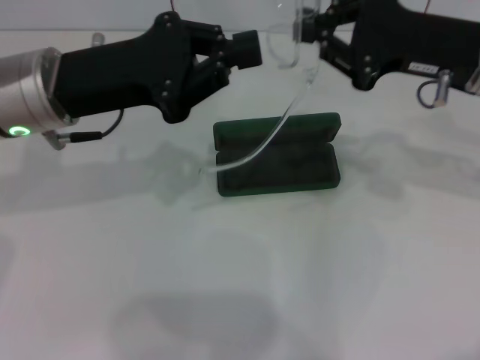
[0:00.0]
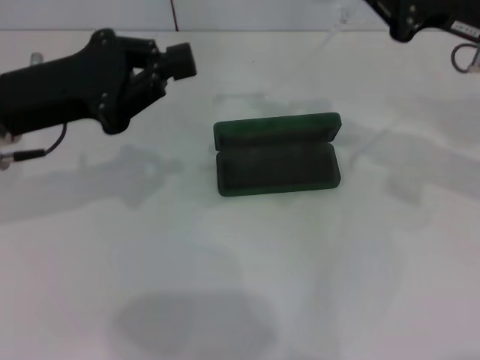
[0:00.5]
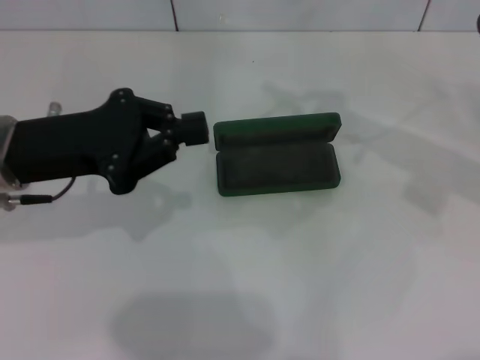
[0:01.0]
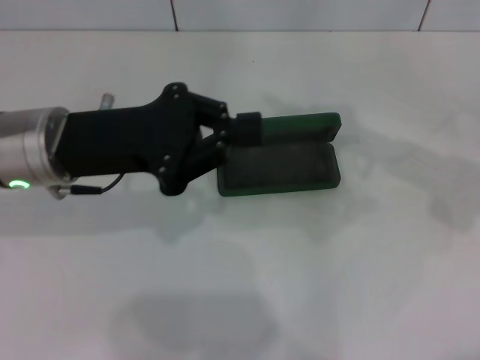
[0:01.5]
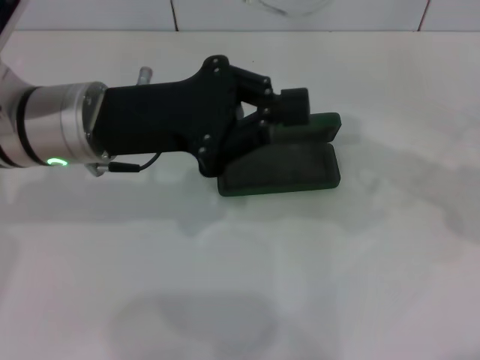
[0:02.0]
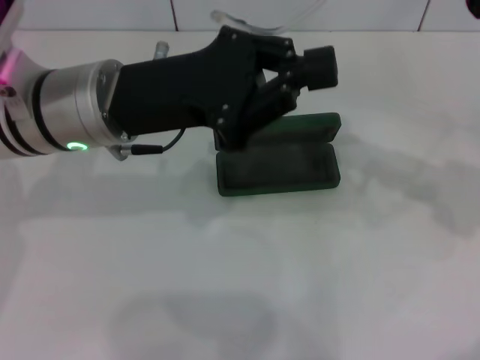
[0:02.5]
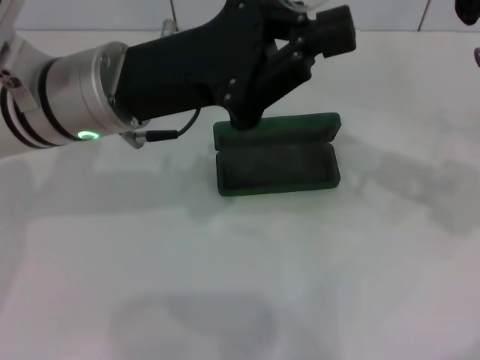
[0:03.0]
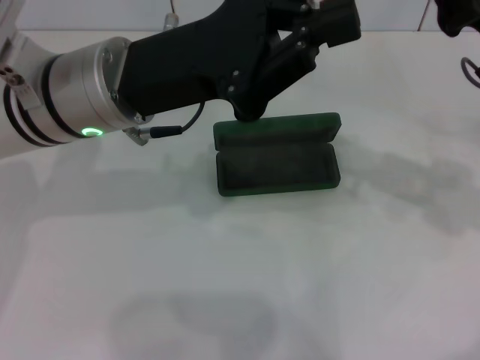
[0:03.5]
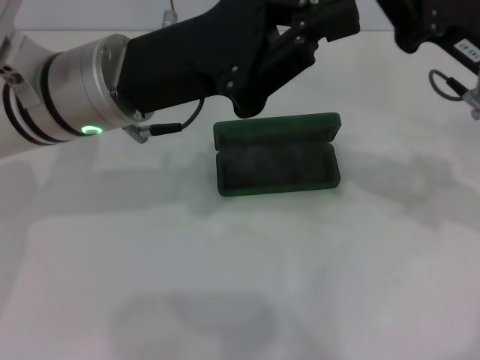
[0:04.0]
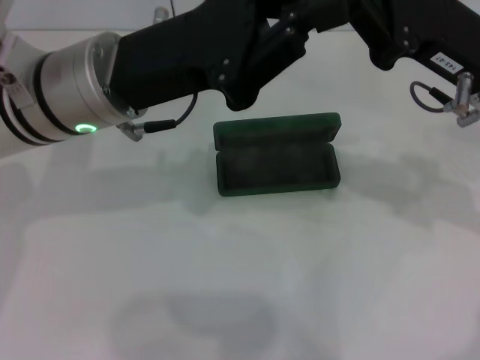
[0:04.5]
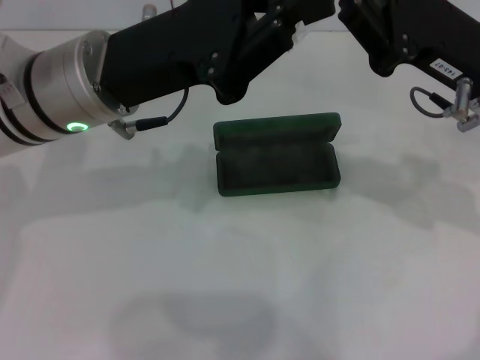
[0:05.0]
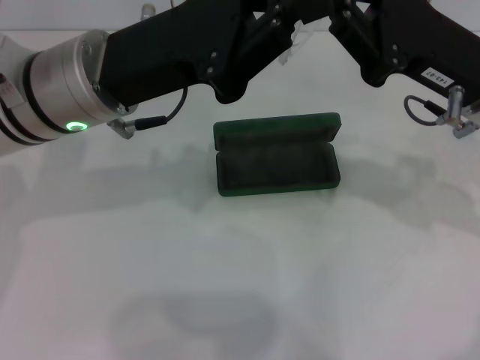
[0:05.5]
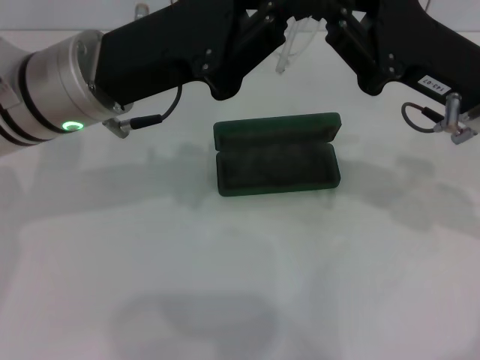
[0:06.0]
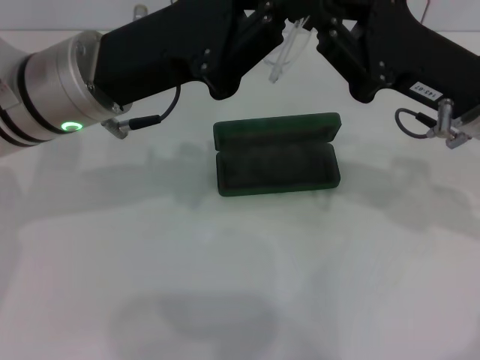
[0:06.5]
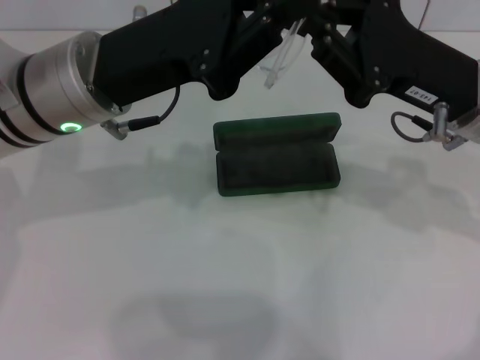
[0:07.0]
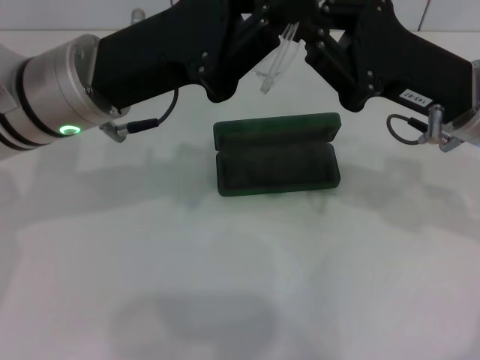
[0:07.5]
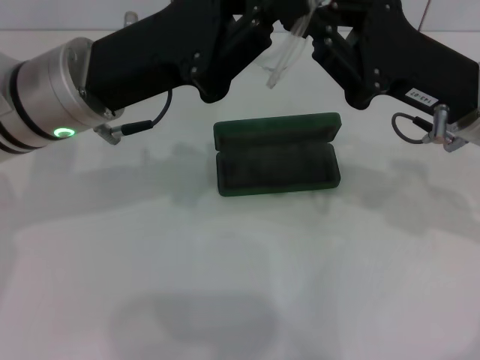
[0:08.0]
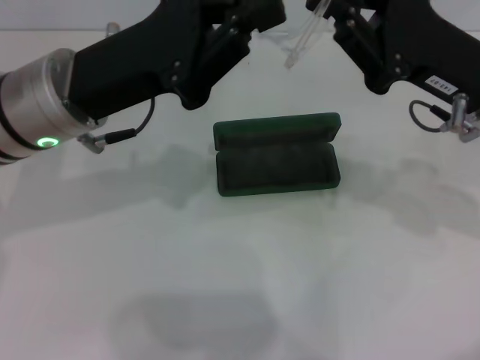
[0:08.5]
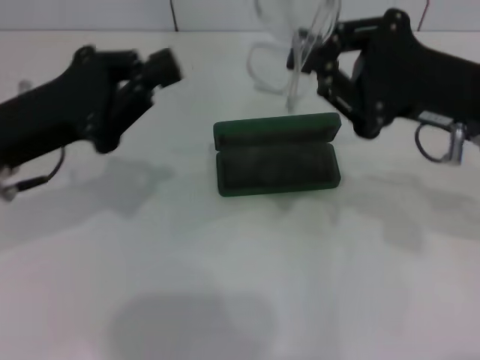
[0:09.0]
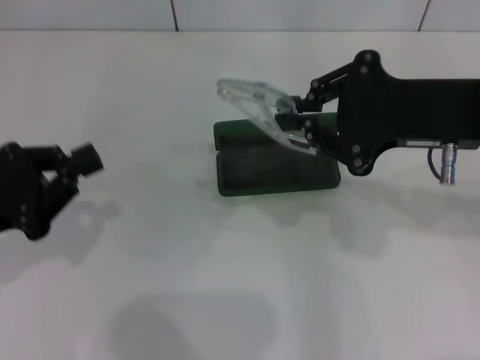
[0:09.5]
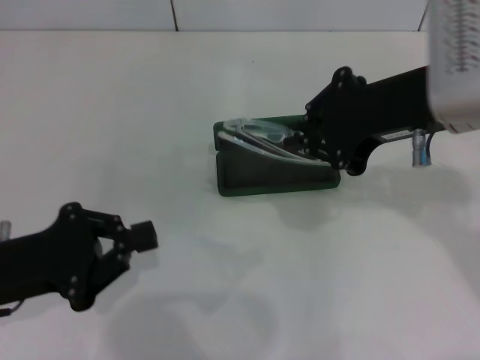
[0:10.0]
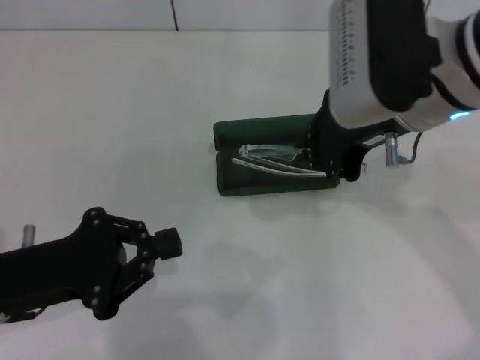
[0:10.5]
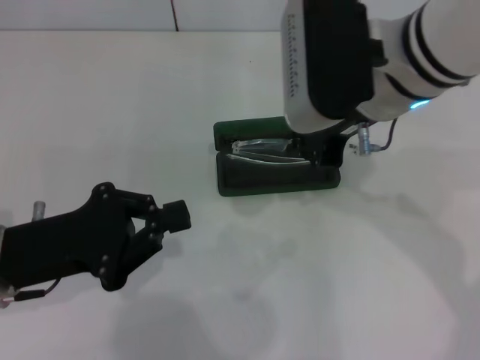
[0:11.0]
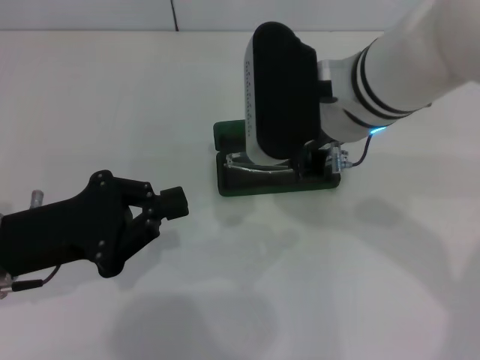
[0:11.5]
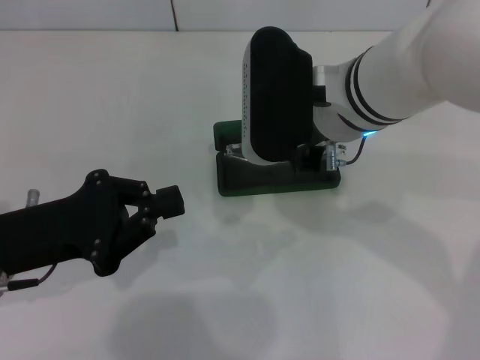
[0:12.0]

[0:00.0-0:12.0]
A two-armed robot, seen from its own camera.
Step, 0:00.0 to 0:08.0: Fold the frame with your left hand.
0:00.0 to 0:02.0: The right gripper changes place by about 5 cm.
0:04.0 to 0:06.0: The grippers move only a little.
0:06.0 to 0:08.0: The two grippers keep their place.
0:08.0 to 0:10.0: The left gripper shifts about 20 cm to the left, backward and downward; the right gripper is displaced upward by roughly 10 cm.
0:10.0 to 0:12.0: The right gripper is displaced to the left and downward by roughly 10 cm.

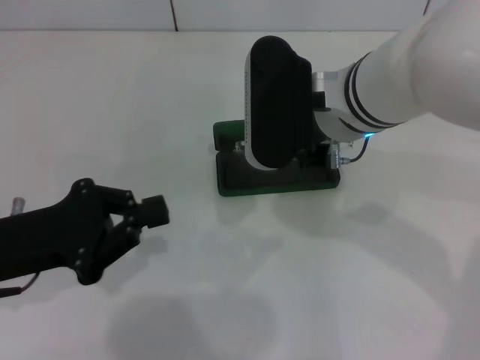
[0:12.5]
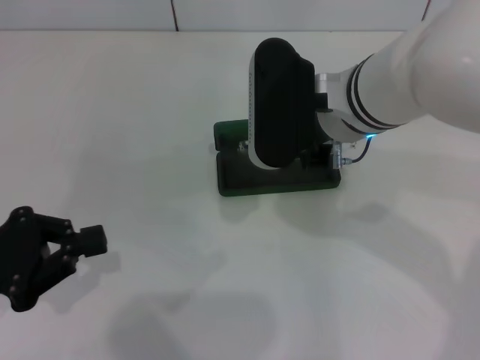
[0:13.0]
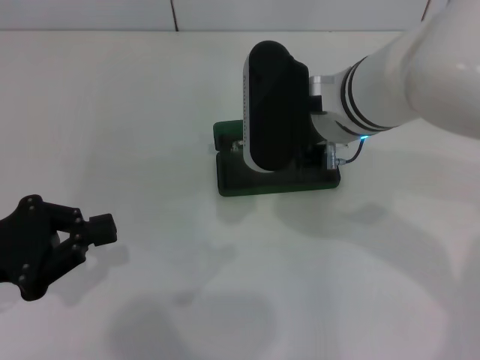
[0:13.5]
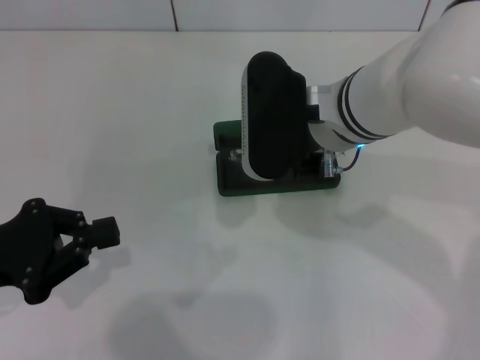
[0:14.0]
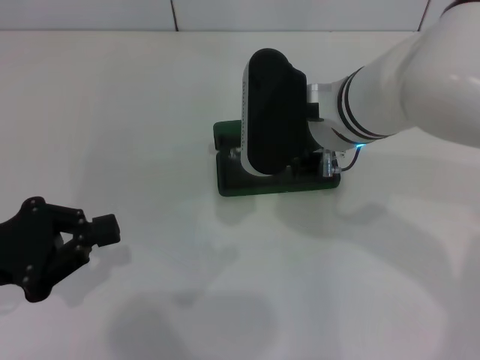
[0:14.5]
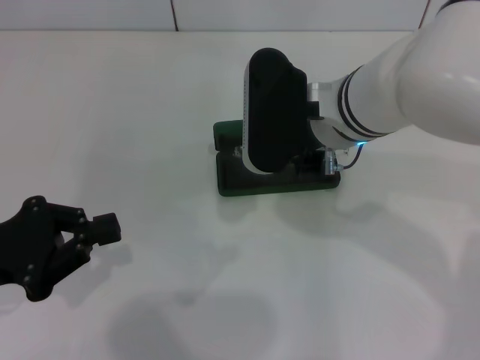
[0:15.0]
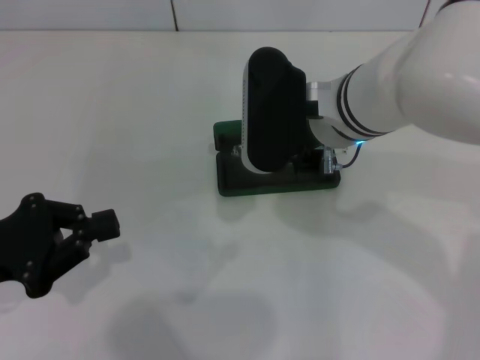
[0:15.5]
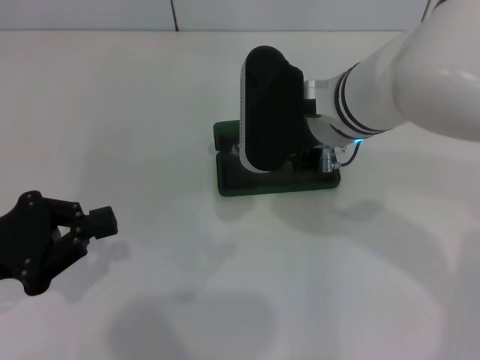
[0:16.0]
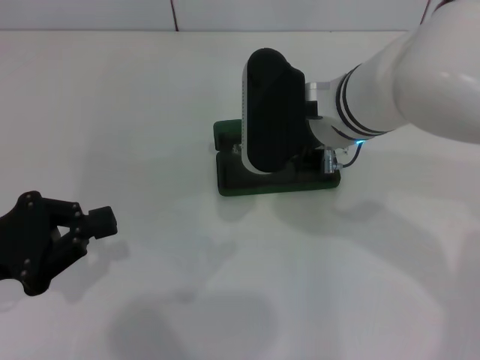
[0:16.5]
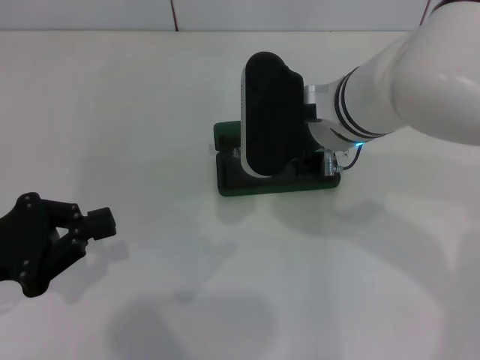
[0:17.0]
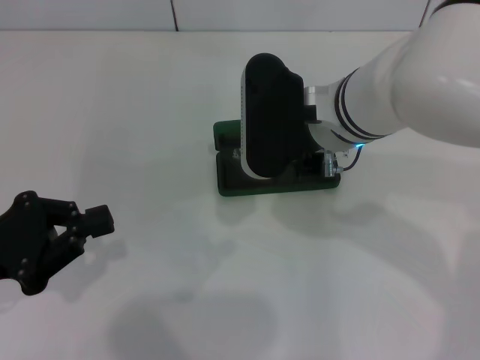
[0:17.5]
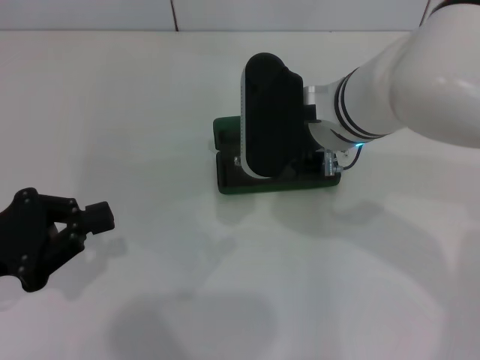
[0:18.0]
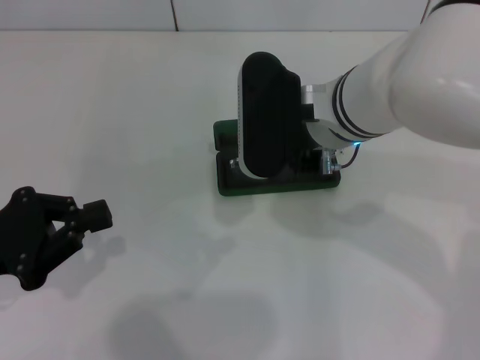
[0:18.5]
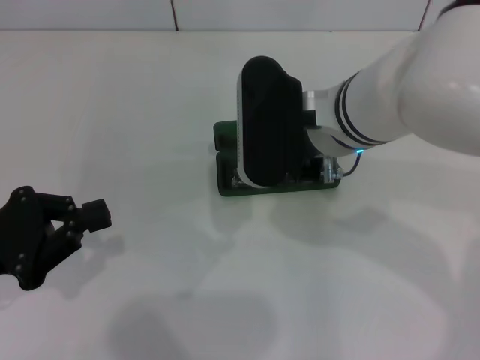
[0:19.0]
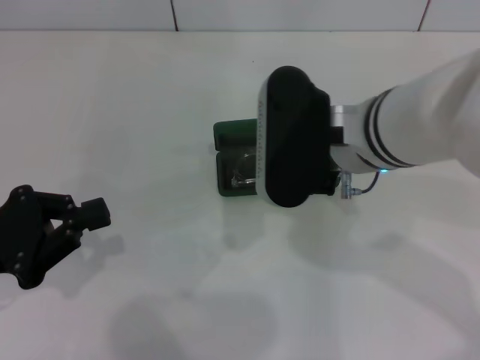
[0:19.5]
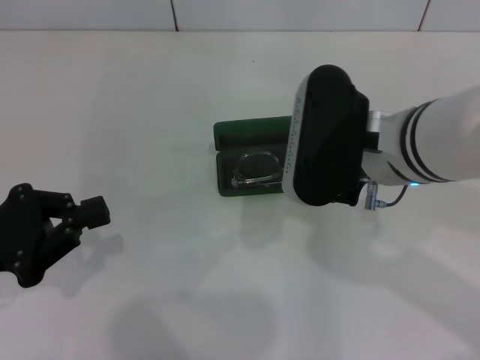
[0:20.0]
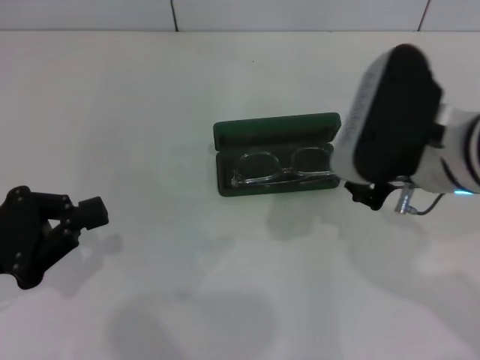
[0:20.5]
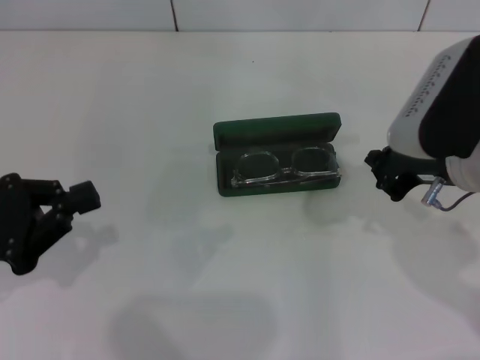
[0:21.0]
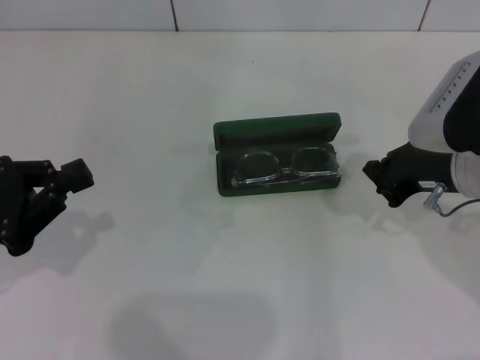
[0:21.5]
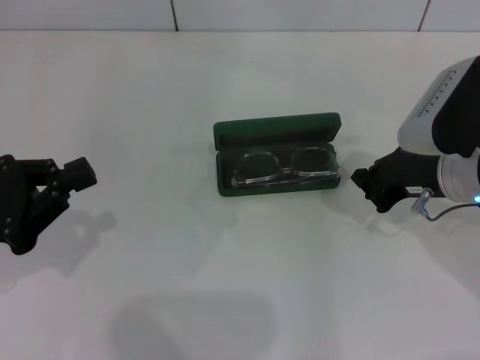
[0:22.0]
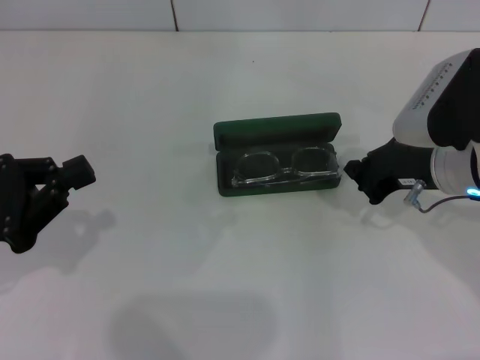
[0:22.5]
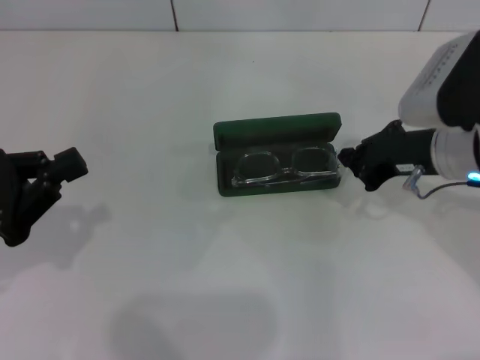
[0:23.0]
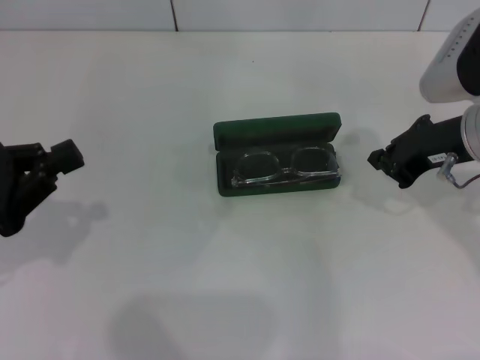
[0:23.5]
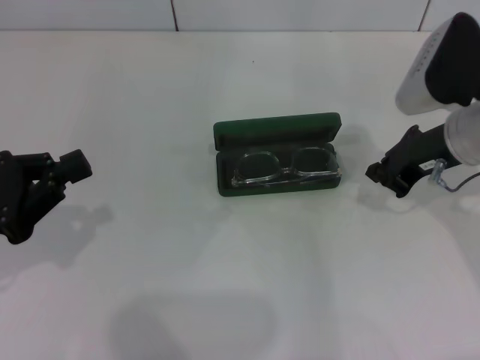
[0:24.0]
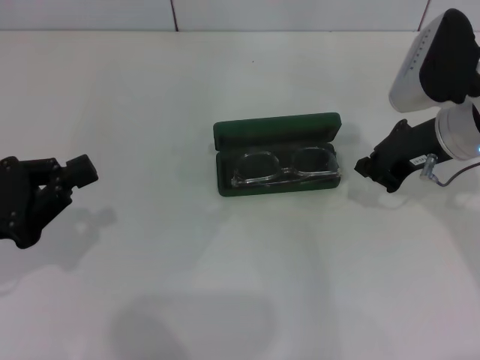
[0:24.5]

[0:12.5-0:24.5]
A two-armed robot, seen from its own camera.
0:12.5 to 0:14.5: There are only small adjustments of the grippers.
0:14.5 to 0:18.5: Both grippers stay put.
0:18.5 to 0:20.5: The right gripper heads to the right and backward, covering some 10 cm.
0:20.5 to 0:22.5: The right gripper heads downward and to the right, covering about 10 cm.
0:22.5 to 0:24.5: The grippers stay close to where they were, moving slightly.

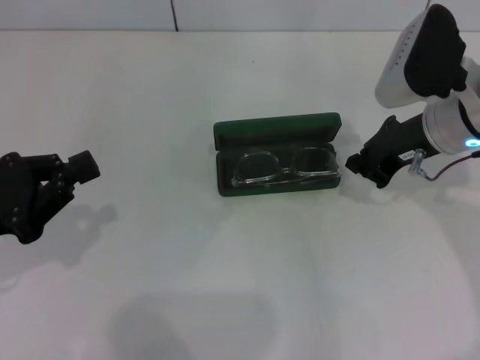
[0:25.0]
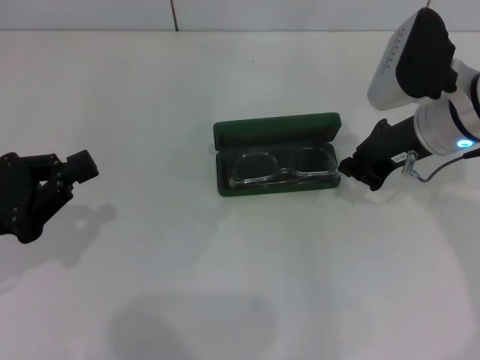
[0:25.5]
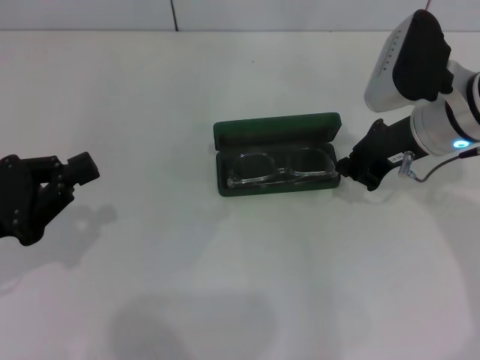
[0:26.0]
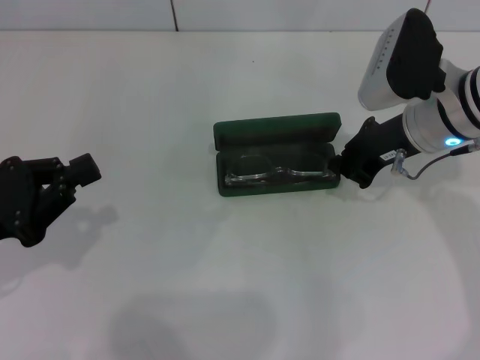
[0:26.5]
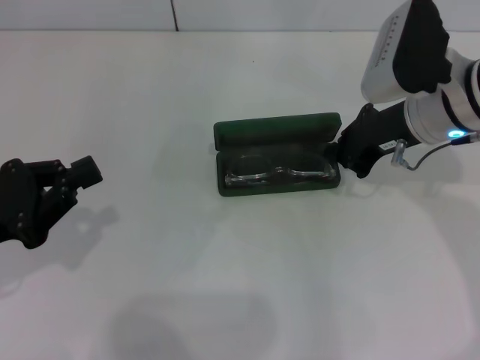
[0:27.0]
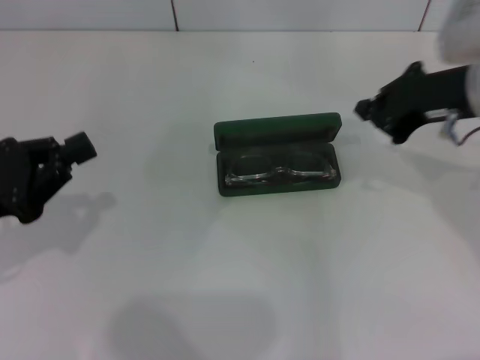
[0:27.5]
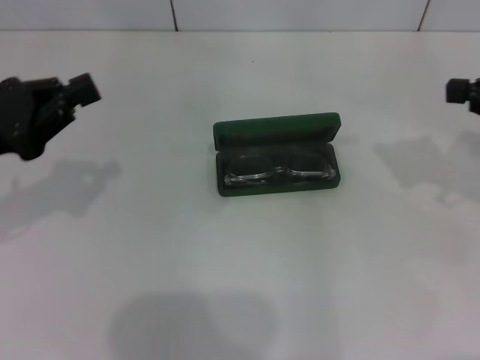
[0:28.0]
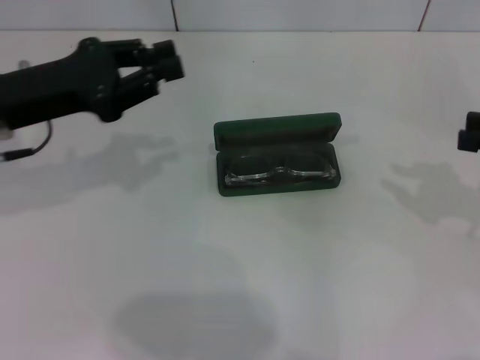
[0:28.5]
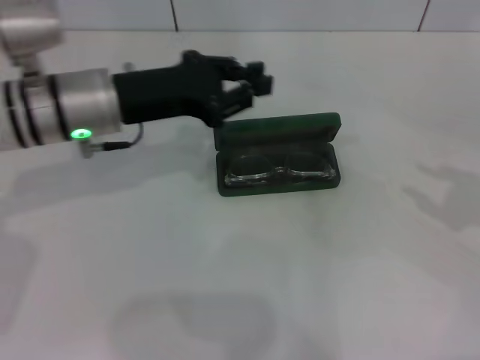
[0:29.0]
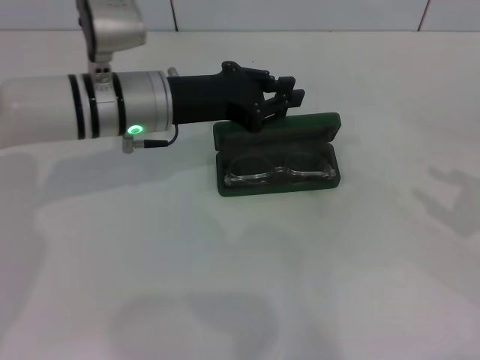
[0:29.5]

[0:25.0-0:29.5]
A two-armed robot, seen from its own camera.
Step, 0:25.0 to 0:27.0: Put the glasses into the case with your right hand.
0:25.0 to 0:27.0: The grippers stay close to where they were, moving slightly.
0:27.0 to 0:29.5: The left gripper goes about 25 cm to the right and forward, and opens up; the right gripper moves to the right and backward, some 25 cm, and opens up.
